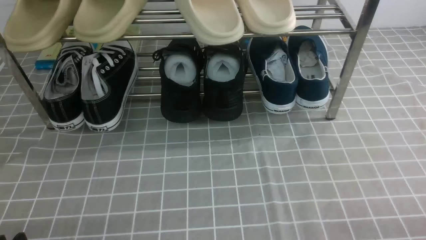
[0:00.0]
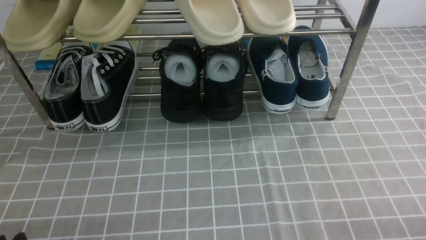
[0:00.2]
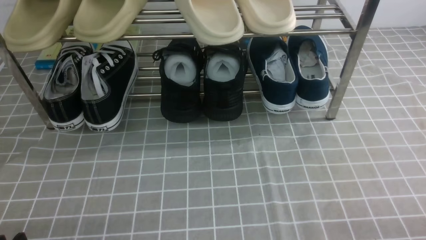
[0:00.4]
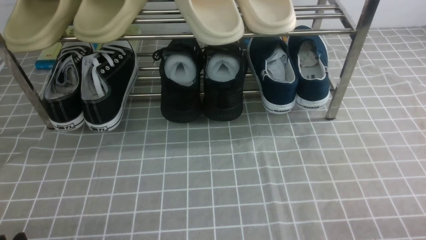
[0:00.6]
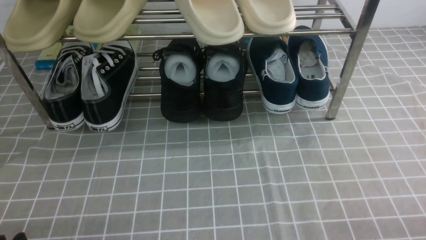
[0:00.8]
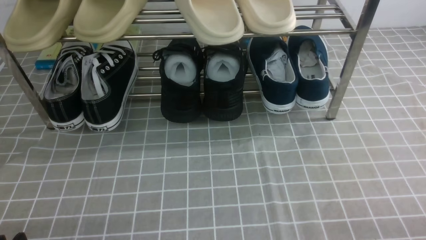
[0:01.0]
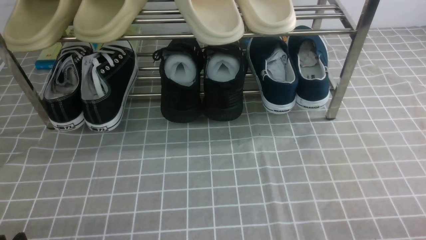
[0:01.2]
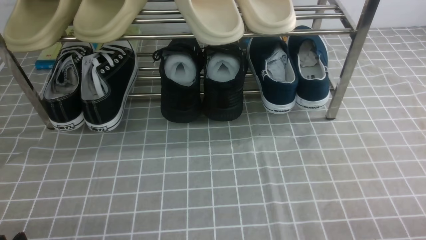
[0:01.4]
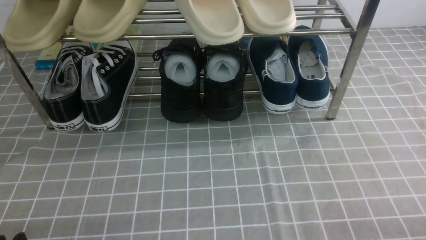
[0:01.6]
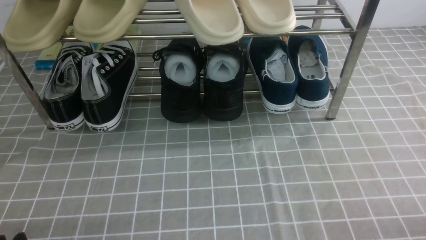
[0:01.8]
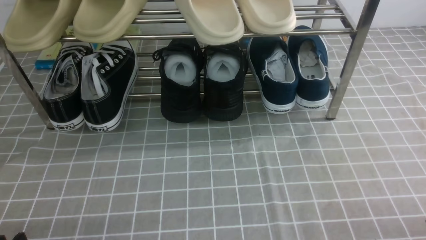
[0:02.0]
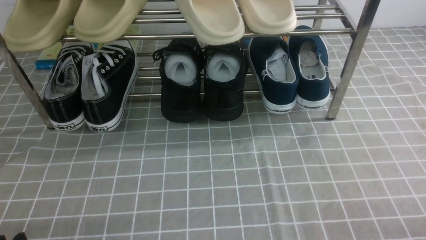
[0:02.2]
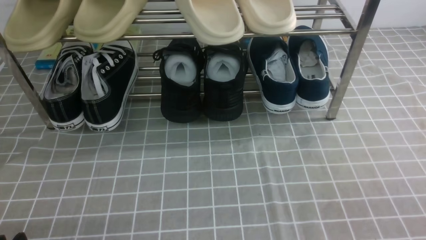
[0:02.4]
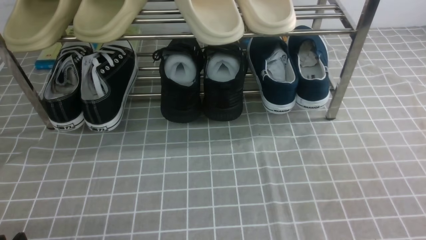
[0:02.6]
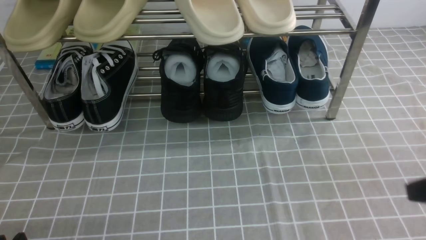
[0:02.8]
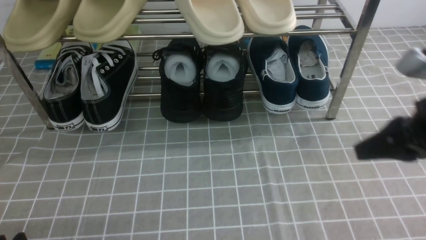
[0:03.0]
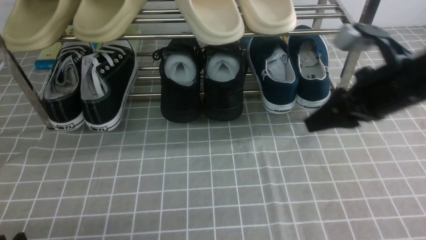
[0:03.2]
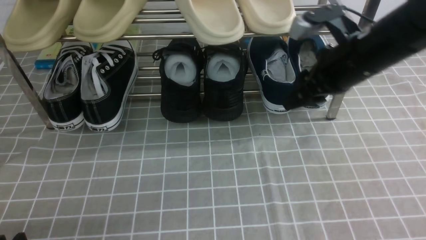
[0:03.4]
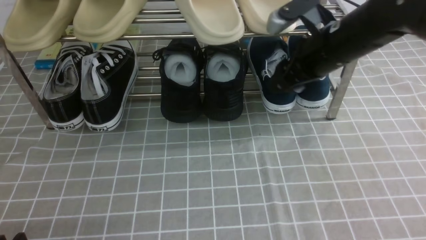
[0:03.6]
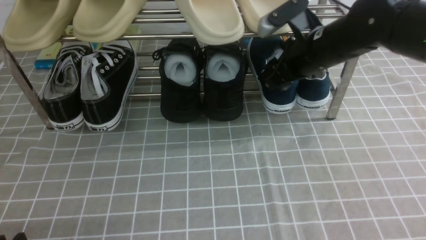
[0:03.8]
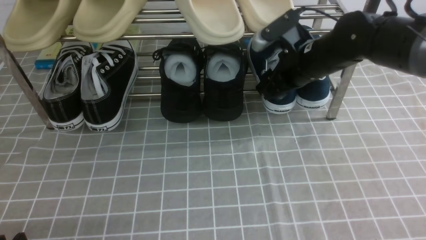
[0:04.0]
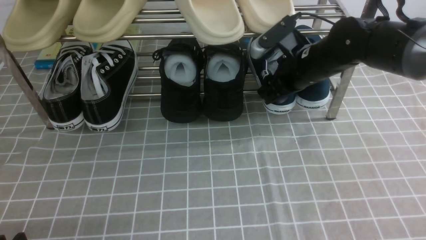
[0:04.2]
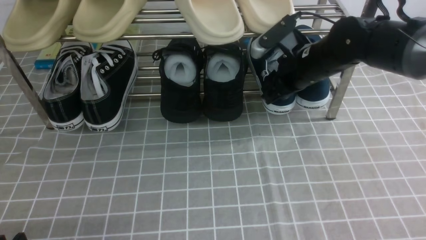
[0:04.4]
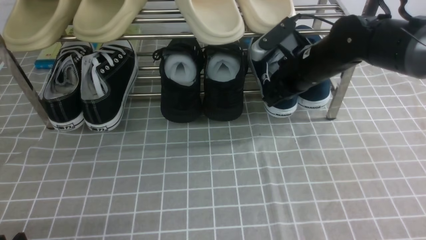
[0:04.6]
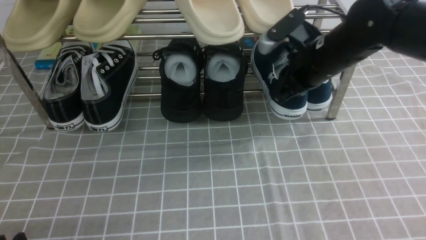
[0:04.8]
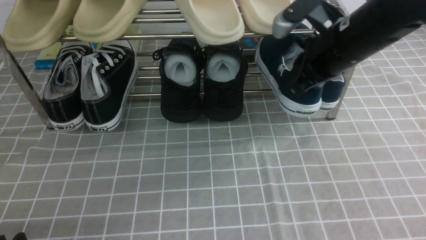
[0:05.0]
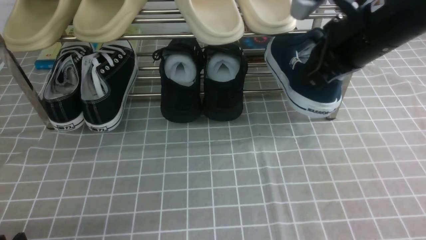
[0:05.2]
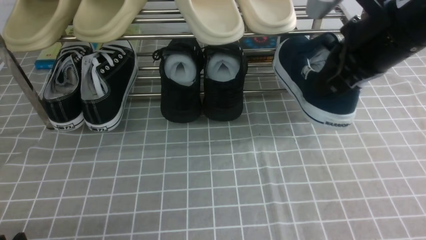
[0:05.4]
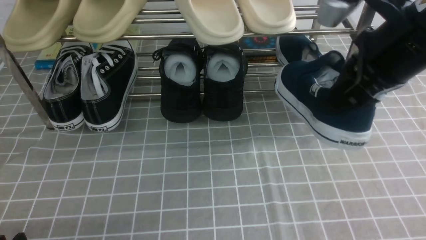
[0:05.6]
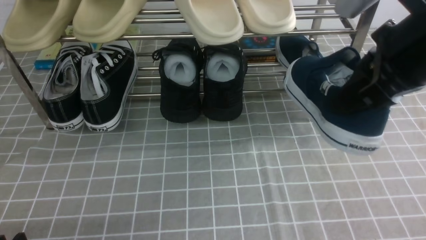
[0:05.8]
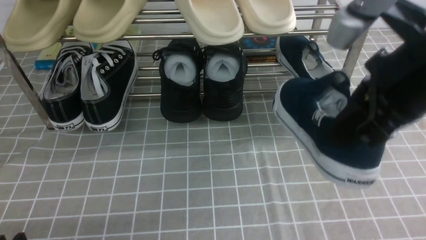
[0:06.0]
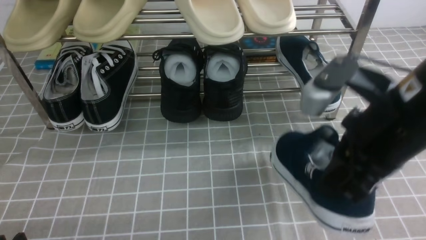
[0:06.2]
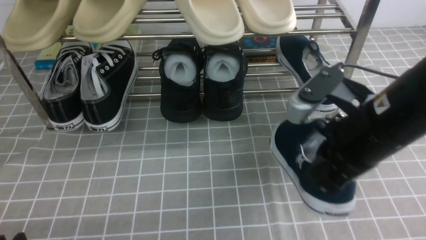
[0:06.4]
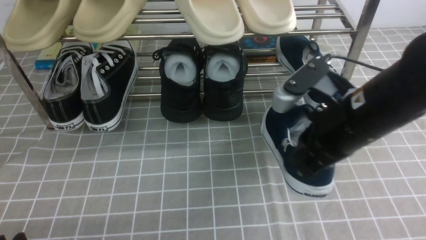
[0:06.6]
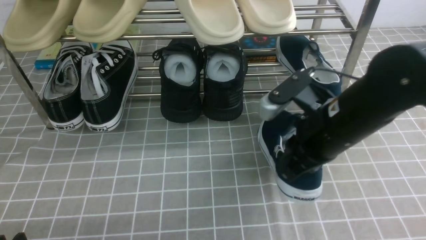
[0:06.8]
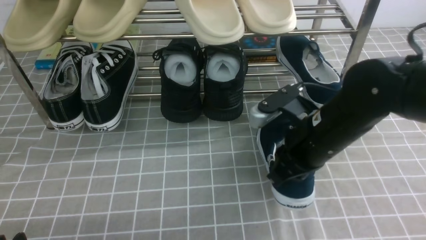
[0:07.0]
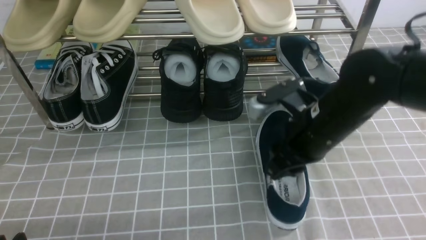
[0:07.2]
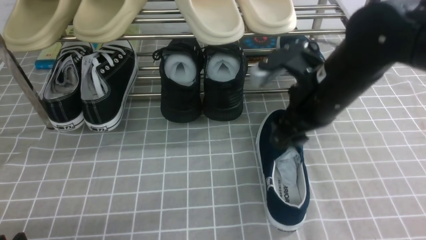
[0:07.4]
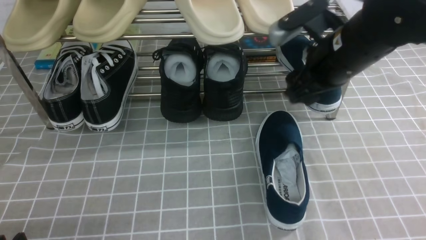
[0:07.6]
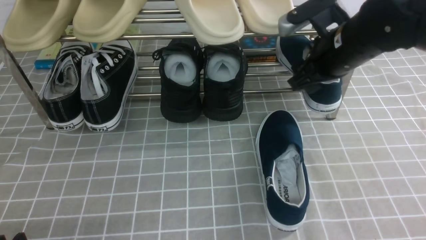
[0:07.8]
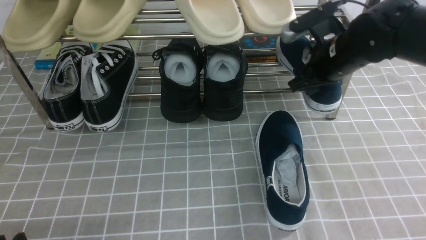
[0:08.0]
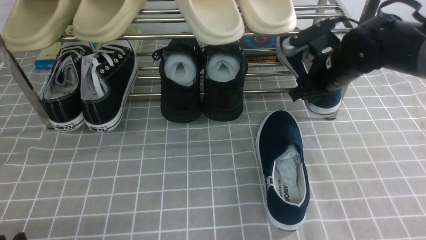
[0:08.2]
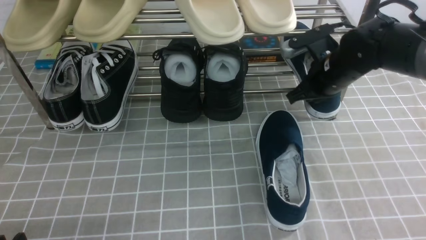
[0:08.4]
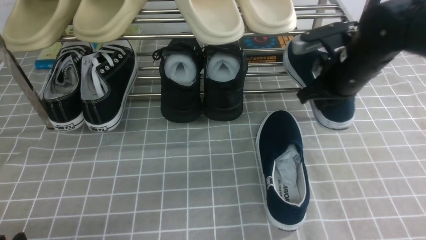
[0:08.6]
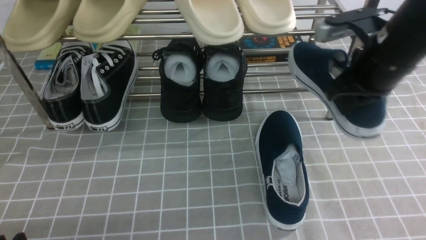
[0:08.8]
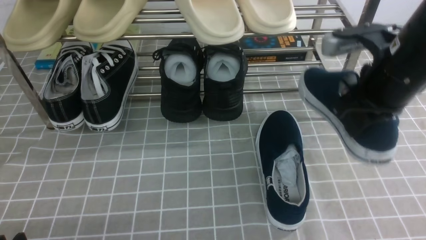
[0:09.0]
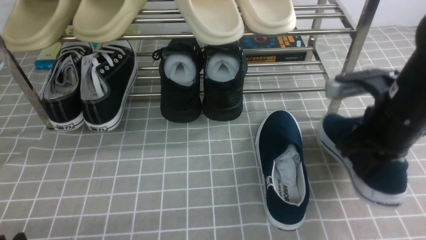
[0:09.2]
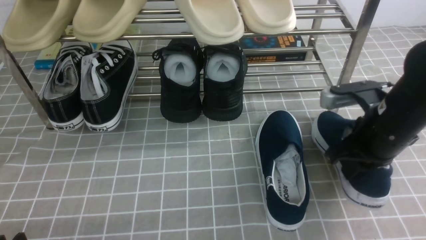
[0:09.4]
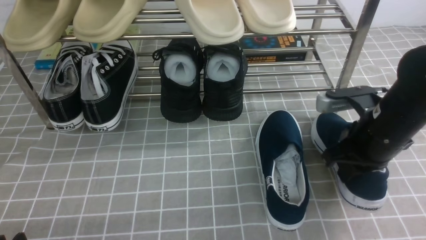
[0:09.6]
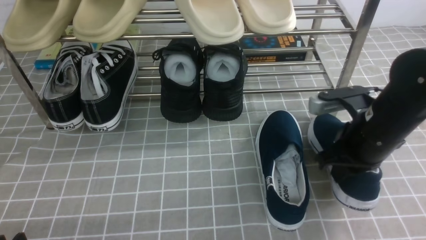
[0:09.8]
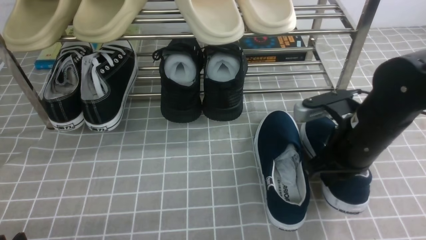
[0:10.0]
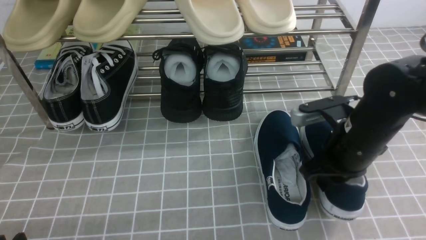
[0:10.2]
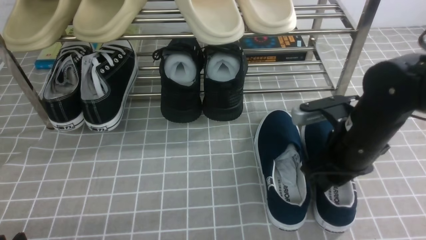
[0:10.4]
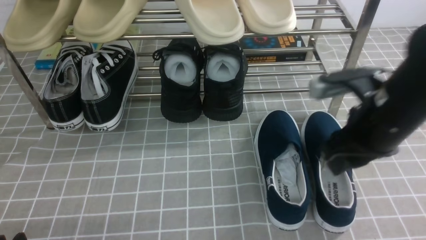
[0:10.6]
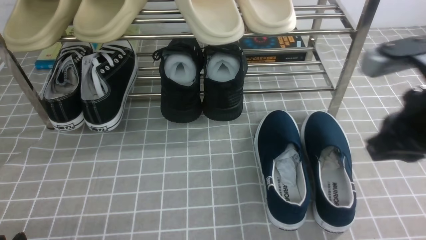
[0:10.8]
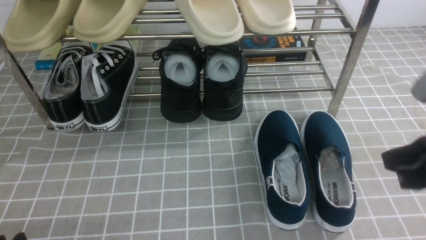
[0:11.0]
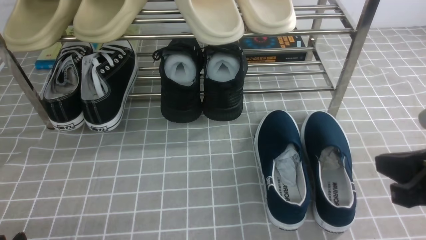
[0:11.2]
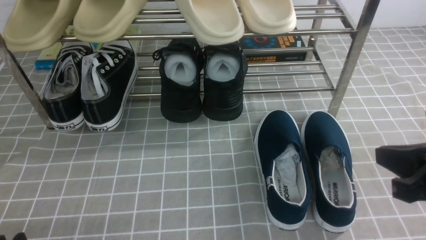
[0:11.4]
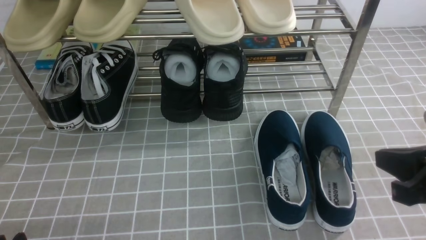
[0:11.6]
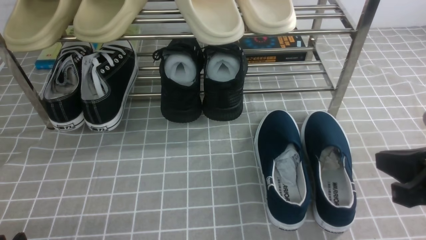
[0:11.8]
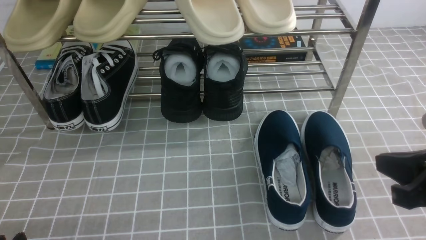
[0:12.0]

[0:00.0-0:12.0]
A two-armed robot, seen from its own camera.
Step, 0:00.0 to 0:04.6: use the right arm to clamp a shoe on the right side of the shoe rack.
Step, 0:05.0 to 0:07.4: use the right arm to take out the clamped shoe from the shoe rack and put it down.
Step, 0:07.6 to 0:08.4: use the right arm to clamp a shoe on the right side of the shoe rack.
Step, 0:08.6 to 0:10.8: use the right arm to take out the clamped shoe from the shoe rack and put it down.
0:01.6 to 0:03.0: The right gripper goes about 25 cm forward, upward and to the left.
0:03.0 to 0:04.4: The right gripper moves forward and to the left, approximately 20 cm, and opens, then closes again.
0:04.4 to 0:06.0: The right gripper travels backward and upward by roughly 25 cm.
0:06.0 to 0:07.6: The right gripper travels forward and downward by about 15 cm, and opens its fingers.
0:07.6 to 0:09.0: The right gripper shifts some 5 cm to the right, and closes.
0:09.0 to 0:10.4: The right gripper travels downward by some 5 cm, and opens its fingers.
0:10.4 to 0:12.0: The right gripper moves backward and to the right, some 15 cm, and closes.

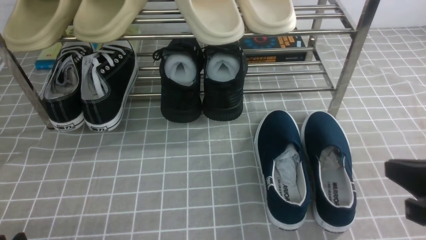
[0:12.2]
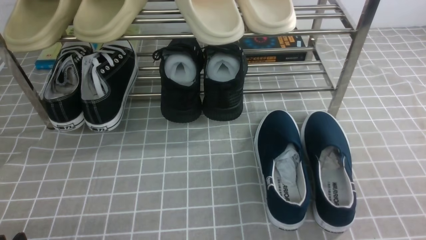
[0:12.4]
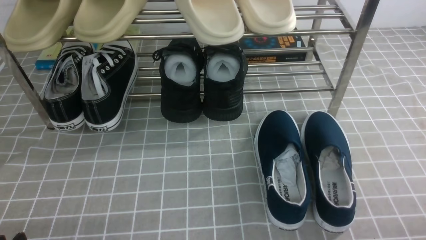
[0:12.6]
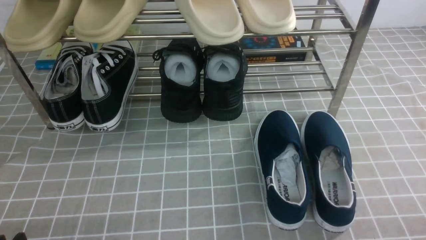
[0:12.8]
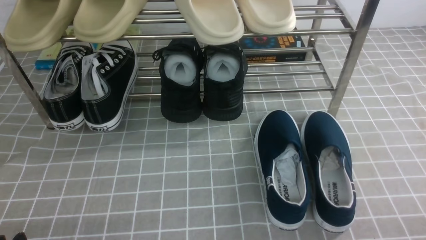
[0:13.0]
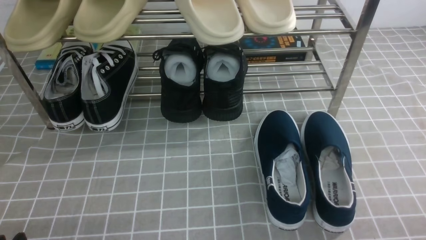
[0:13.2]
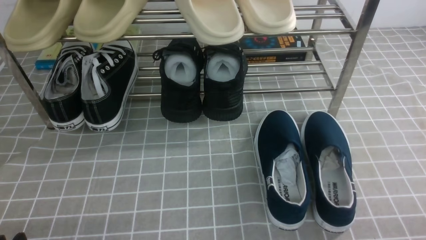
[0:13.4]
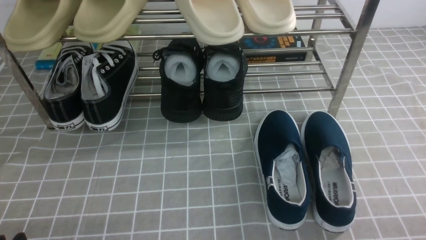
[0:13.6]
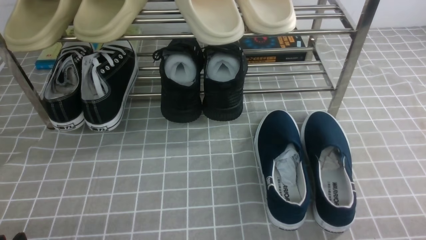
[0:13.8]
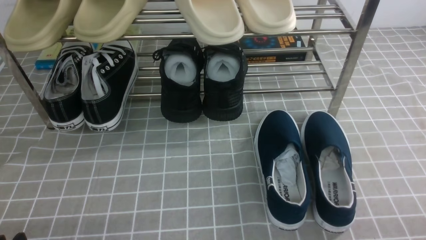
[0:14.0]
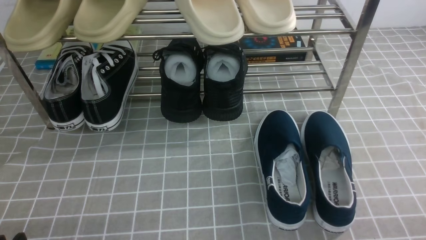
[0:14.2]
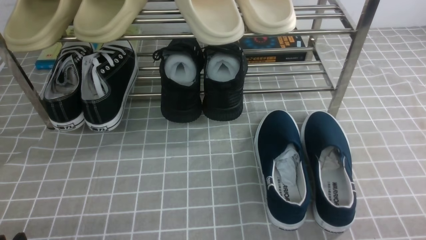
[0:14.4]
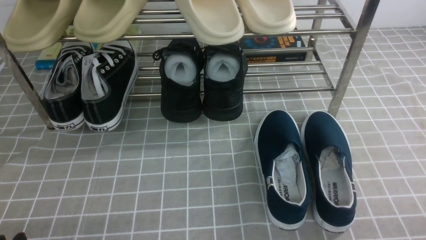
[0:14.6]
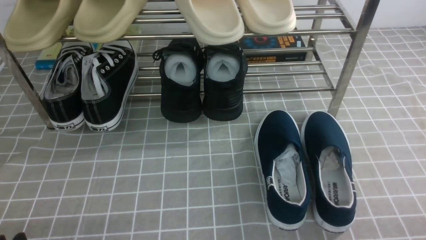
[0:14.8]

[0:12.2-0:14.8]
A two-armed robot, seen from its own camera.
0:12.2 to 0:13.4: The right gripper heads downward and backward, covering approximately 10 cm.
0:13.4 to 0:14.8: Neither gripper changes place.

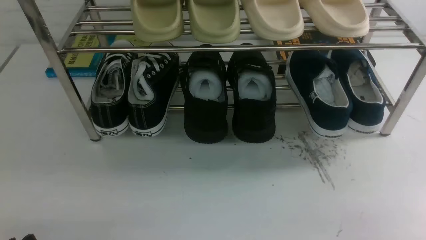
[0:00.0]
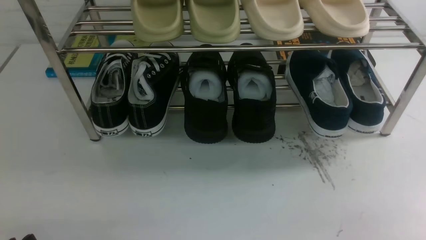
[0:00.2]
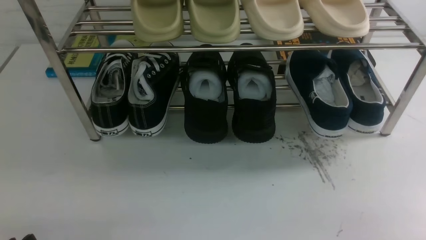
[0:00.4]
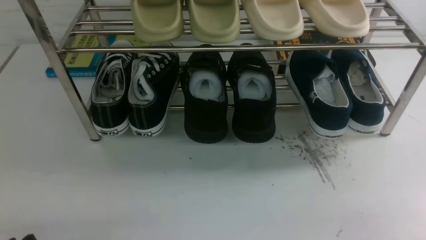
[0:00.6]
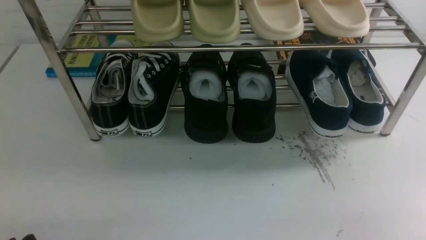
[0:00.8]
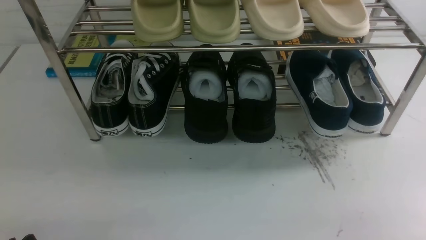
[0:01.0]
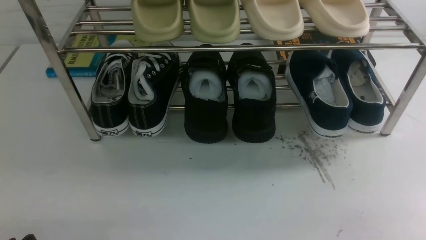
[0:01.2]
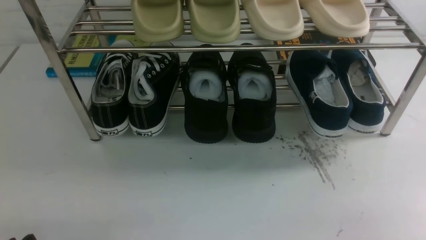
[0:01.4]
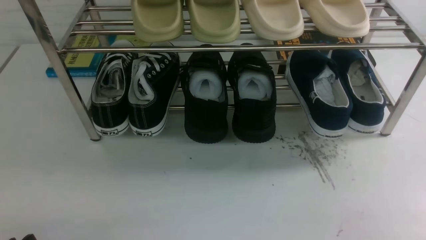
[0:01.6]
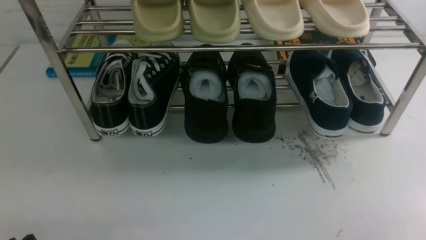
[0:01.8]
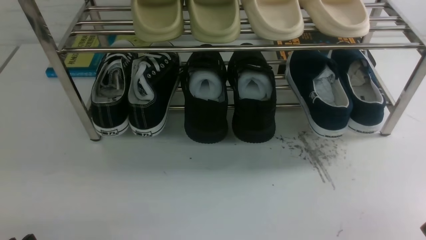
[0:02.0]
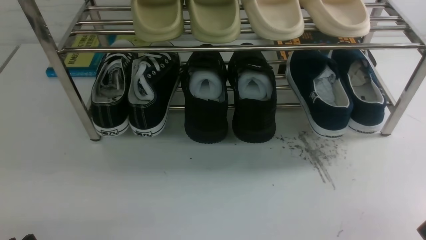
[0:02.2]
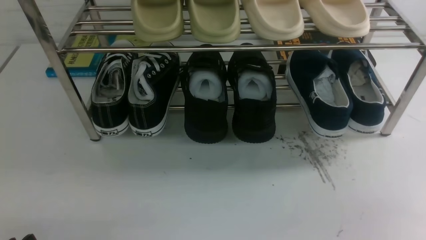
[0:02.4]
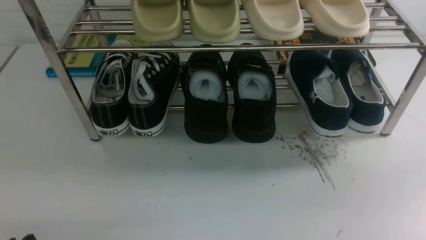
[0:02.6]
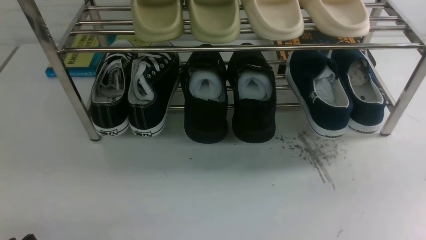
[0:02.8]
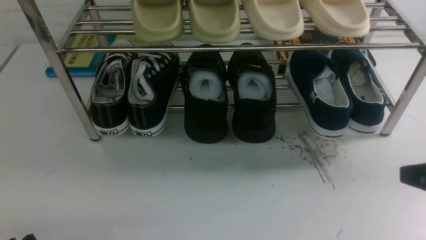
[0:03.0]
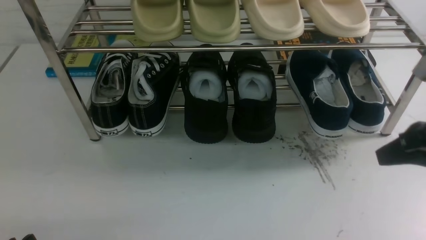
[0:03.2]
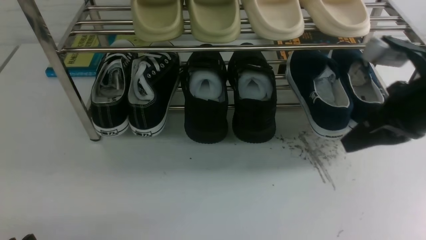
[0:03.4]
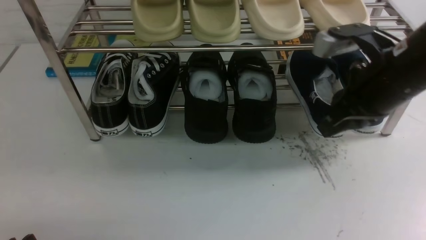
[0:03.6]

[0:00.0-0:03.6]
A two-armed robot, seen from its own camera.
0:01.8 to 0:03.6: The right gripper moves forward, upward and to the left, approximately 30 cm, and closes its fingers.
